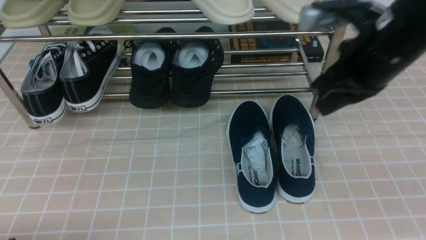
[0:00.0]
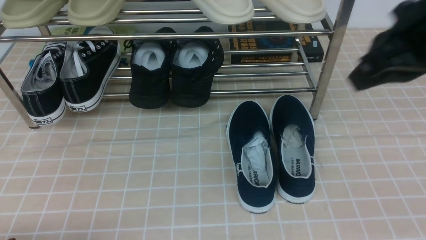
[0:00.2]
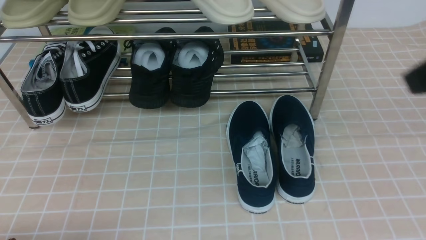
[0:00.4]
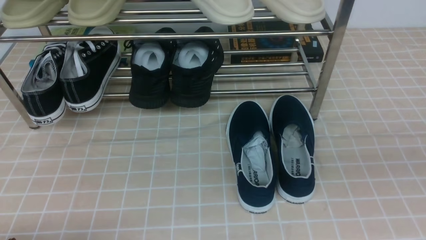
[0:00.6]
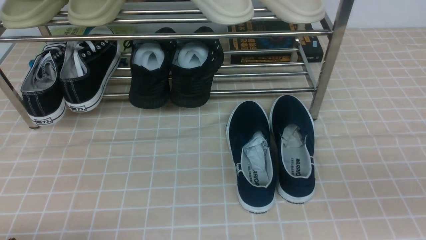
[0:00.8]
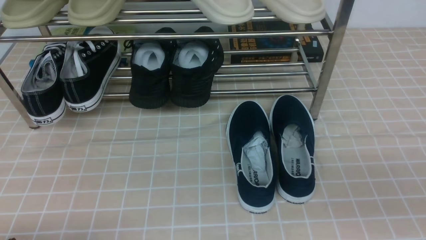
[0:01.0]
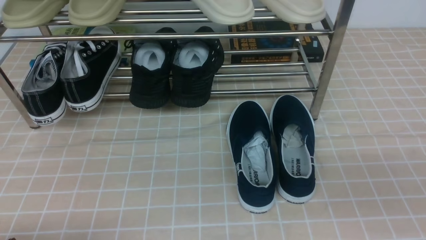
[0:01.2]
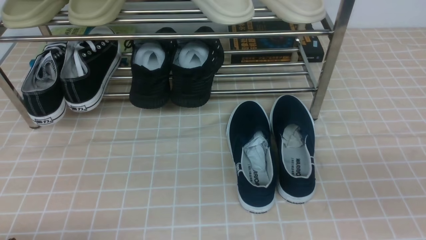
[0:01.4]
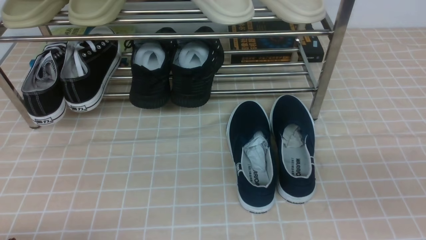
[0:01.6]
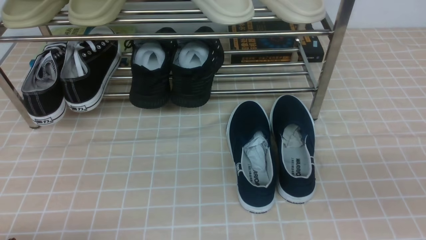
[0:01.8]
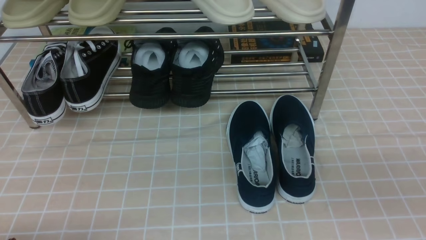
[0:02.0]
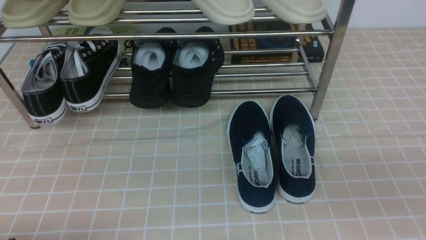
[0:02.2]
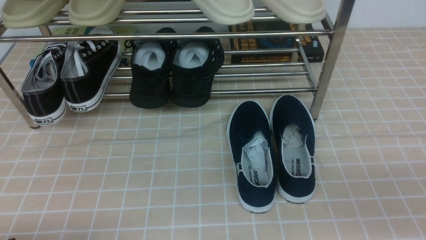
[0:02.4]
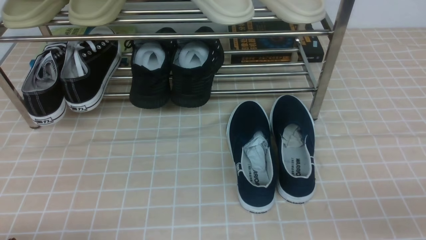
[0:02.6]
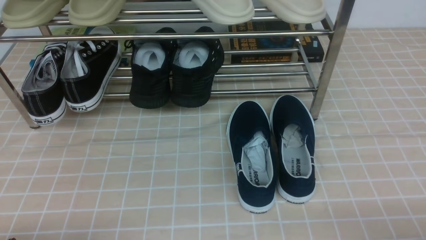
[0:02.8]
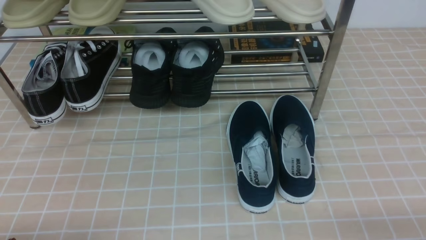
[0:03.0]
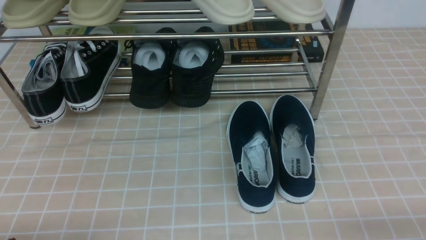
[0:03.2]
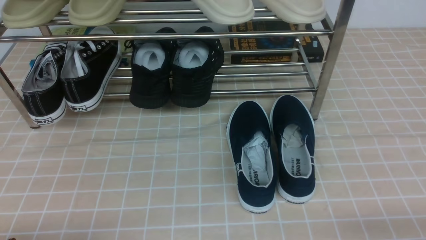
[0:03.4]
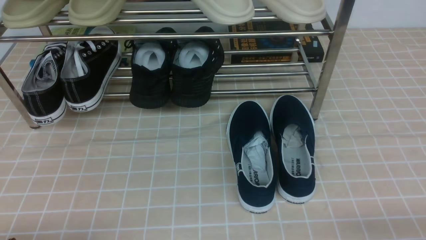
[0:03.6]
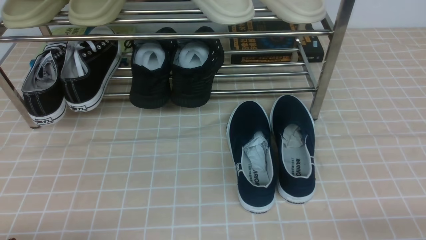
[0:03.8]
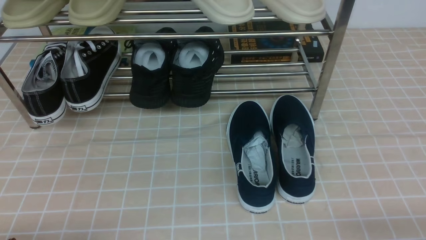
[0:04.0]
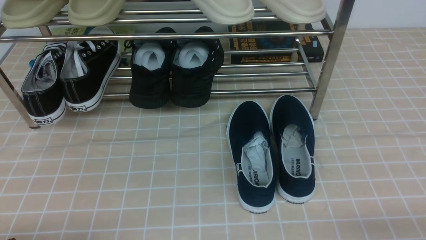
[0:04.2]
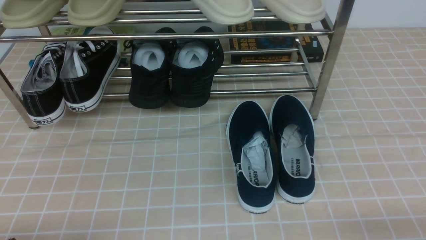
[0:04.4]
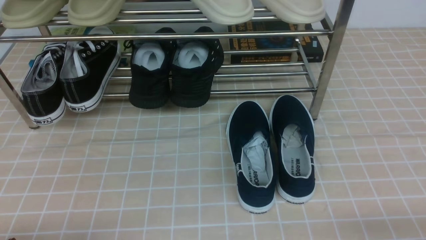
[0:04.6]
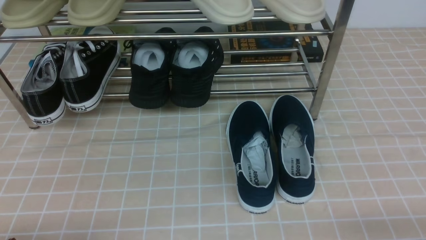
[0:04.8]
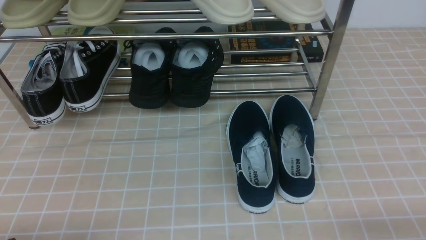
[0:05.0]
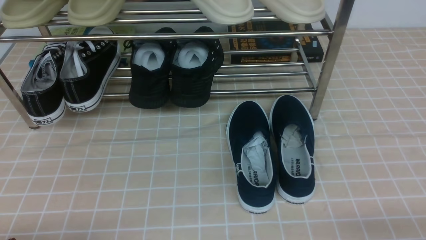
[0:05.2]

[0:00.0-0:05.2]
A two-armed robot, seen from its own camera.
0:00.0 to 0:01.8: The right gripper heads backward and to the right, covering approximately 20 cm.
0:03.4 to 0:05.2: The two grippers keep their place.

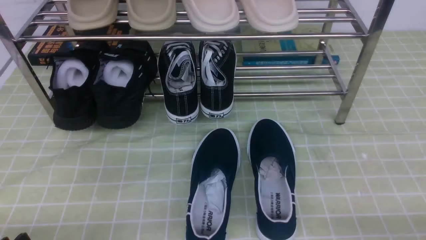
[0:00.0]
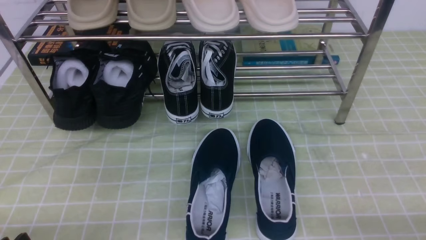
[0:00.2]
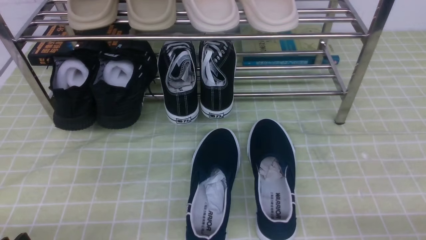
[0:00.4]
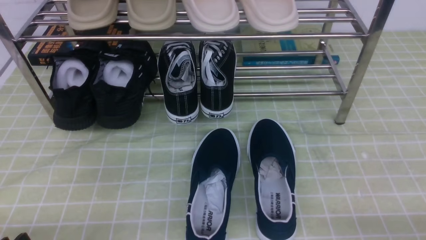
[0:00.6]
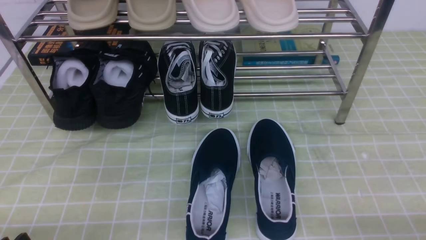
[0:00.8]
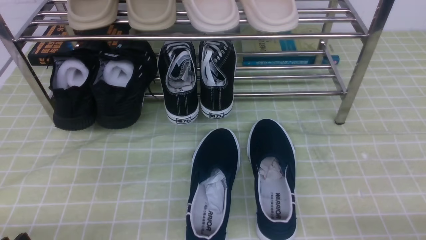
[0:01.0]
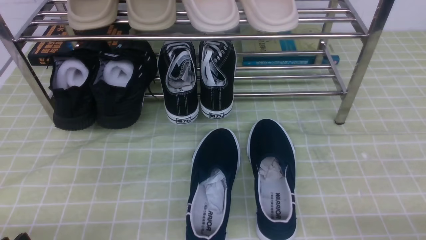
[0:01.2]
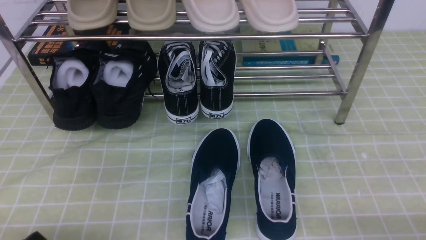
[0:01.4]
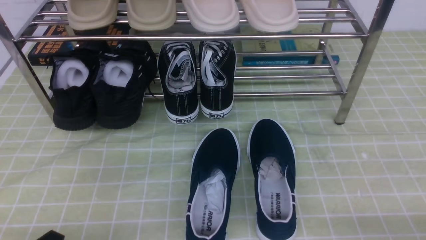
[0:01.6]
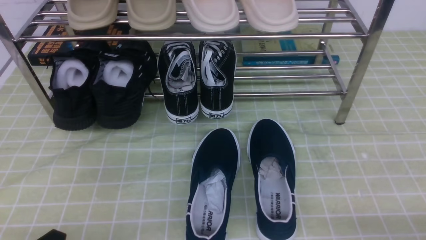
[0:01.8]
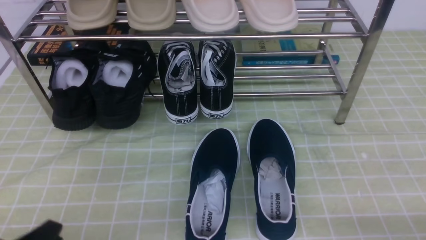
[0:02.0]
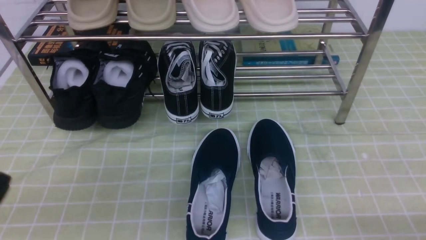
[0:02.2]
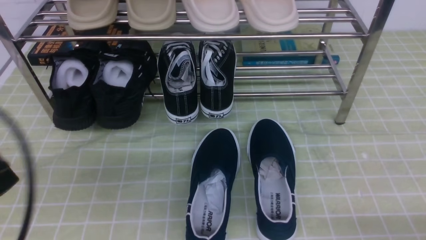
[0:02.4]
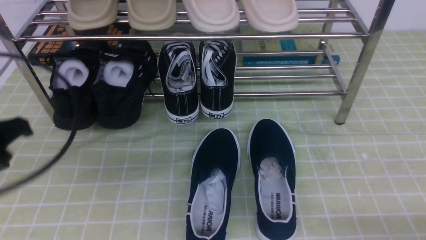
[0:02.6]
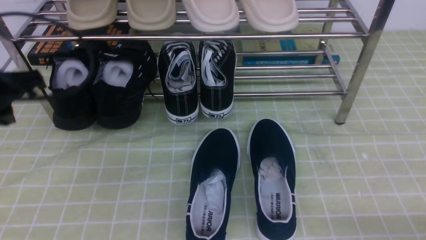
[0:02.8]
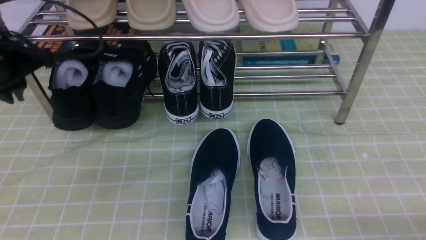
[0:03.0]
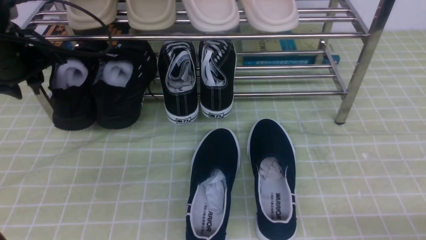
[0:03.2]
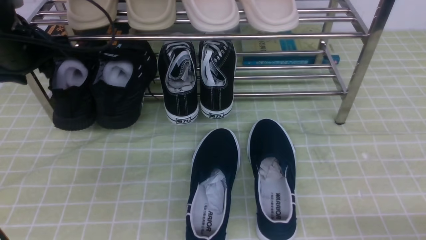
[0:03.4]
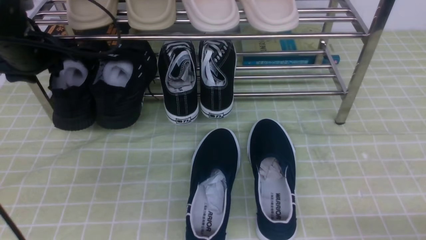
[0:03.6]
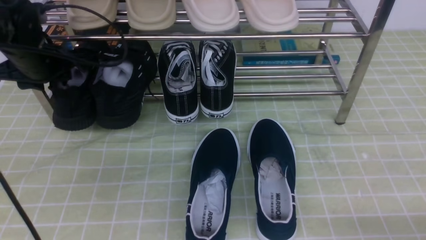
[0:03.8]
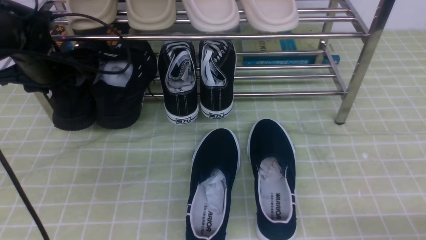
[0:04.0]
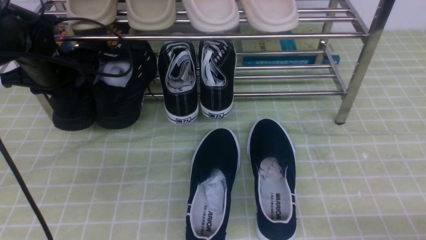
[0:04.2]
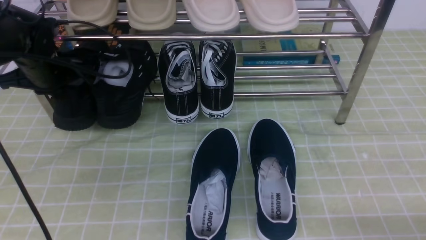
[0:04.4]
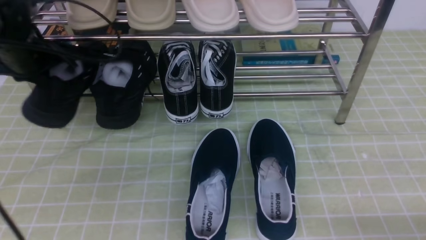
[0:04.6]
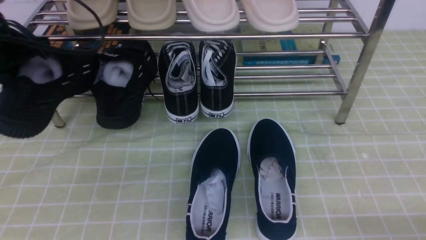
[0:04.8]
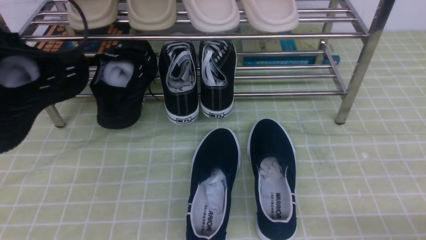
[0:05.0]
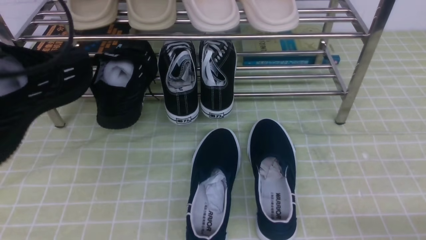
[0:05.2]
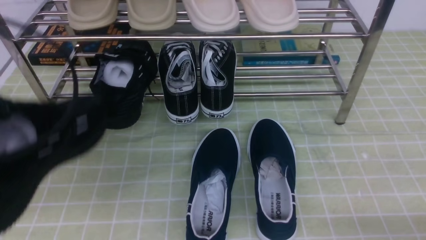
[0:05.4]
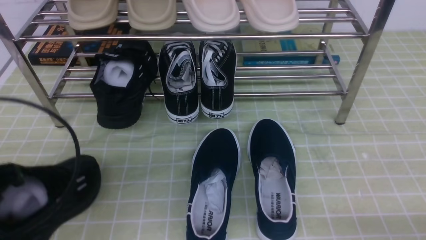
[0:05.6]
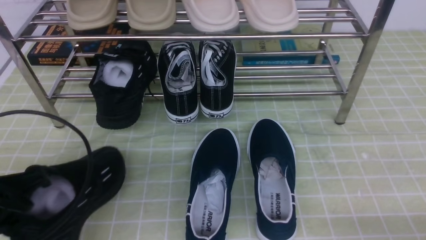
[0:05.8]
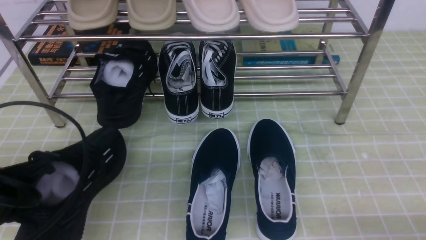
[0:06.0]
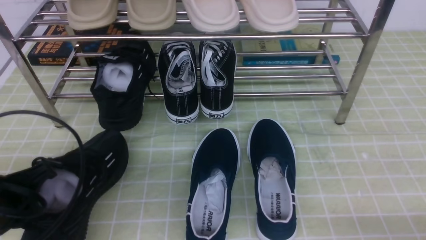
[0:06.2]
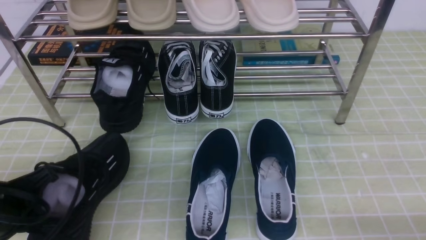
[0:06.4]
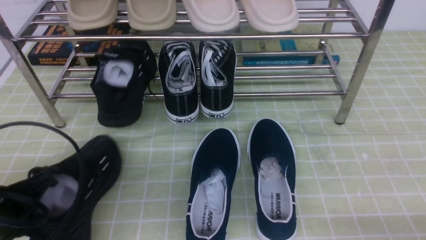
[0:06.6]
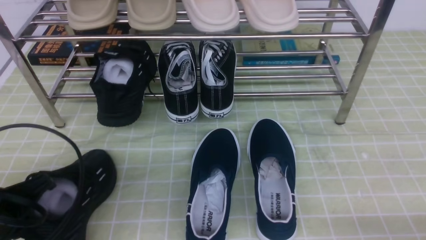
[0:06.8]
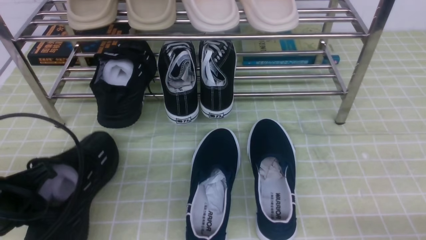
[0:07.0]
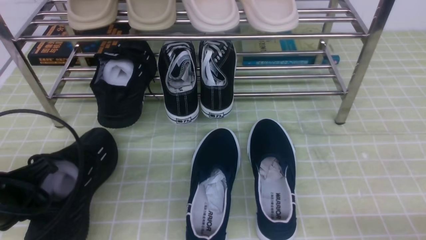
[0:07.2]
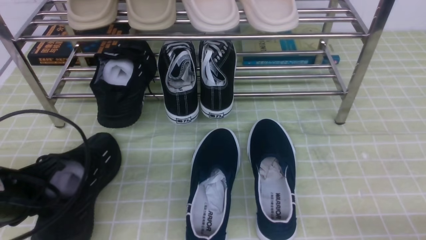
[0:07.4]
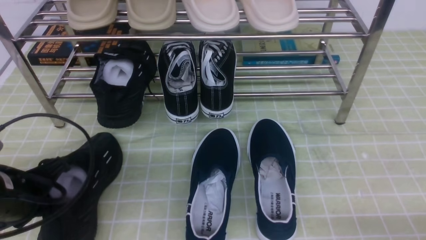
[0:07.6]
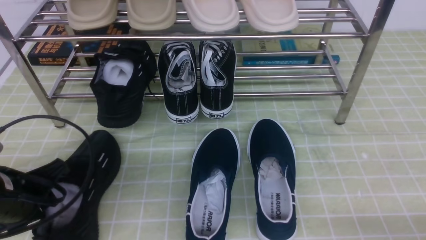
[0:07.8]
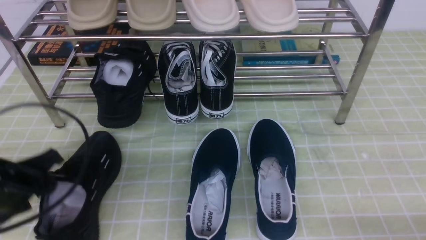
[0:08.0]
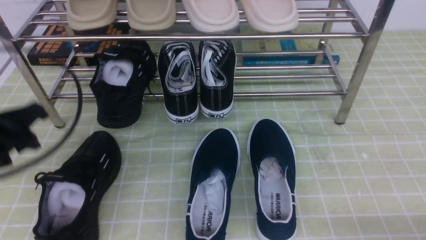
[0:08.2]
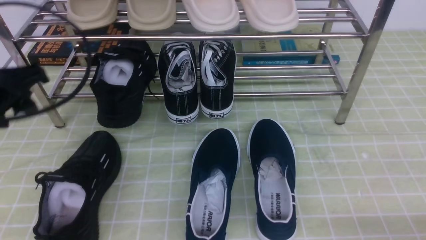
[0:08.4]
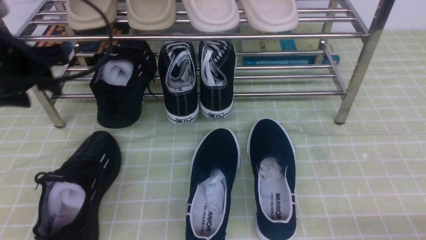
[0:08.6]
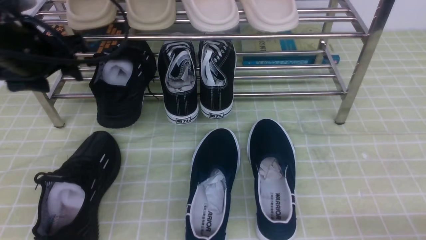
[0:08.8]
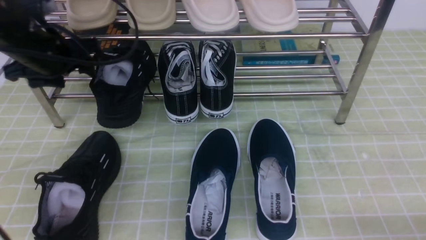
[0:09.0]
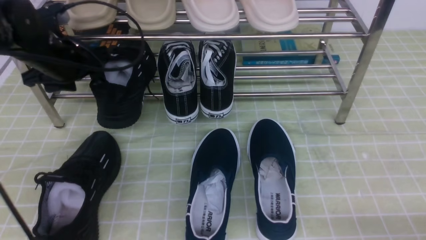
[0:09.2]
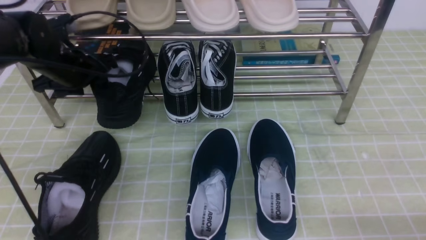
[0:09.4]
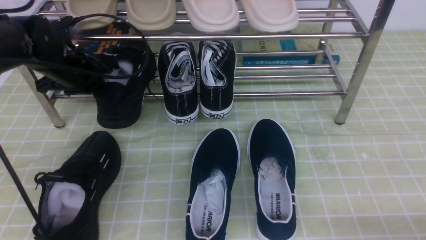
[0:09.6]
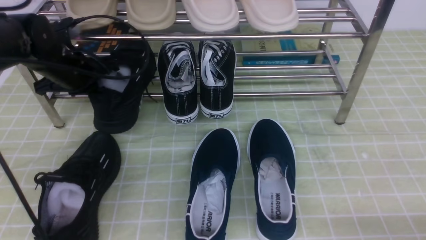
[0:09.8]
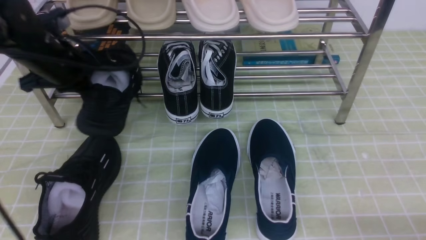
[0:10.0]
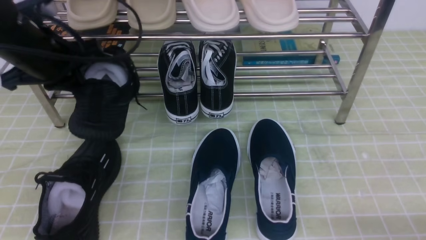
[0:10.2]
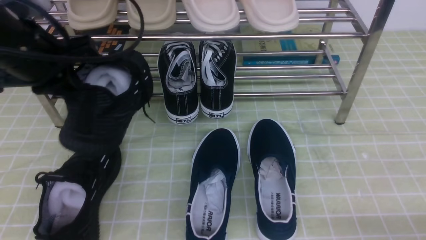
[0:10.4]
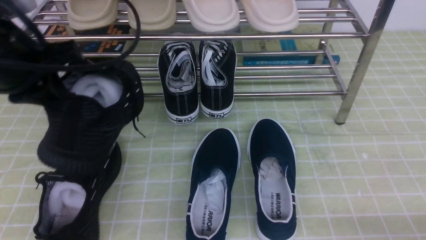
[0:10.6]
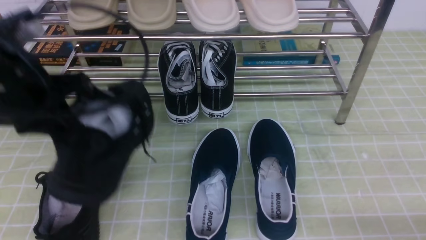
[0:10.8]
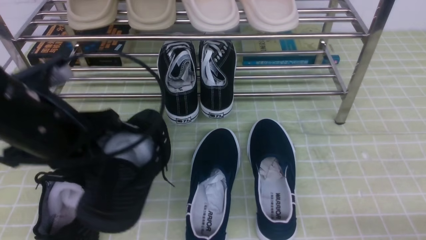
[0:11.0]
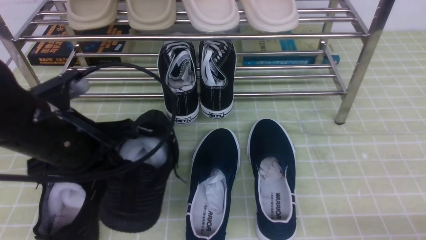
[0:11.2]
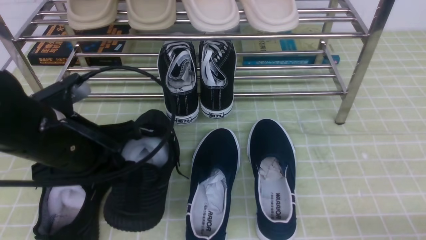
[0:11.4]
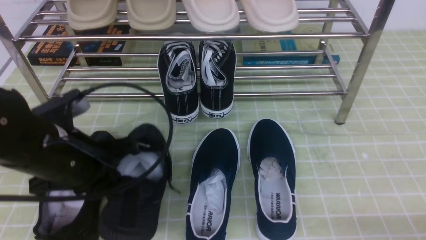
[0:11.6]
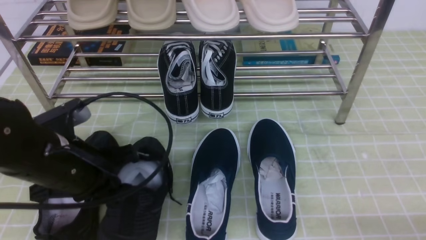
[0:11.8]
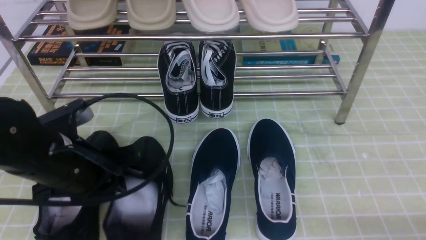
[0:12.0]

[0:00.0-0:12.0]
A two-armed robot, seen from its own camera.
Step, 0:00.0 to 0:04.4: use the left arm to clamp a shoe on the left side of the shoe rack.
Step, 0:04.6 to 0:08.0: Use your left arm to remove the clamped shoe from the shoe rack and put it down.
Step, 0:08.2 to 0:09.8: use the left arm to clamp a shoe on the left side of the shoe rack.
0:01.6 to 0:03.0: The left gripper travels forward and upward by roughly 30 cm.
0:03.0 to 0:04.4: The left gripper shifts some 10 cm forward and downward, and opens, then closes again.
0:04.4 to 0:06.0: The left gripper goes about 25 cm backward.
0:06.0 to 0:07.6: The left gripper ends up approximately 5 cm from where it was.
0:07.6 to 0:09.0: The left gripper heads forward and upward, covering roughly 20 cm, and opens its fingers.
0:09.0 to 0:10.4: The left gripper travels backward and upward by some 10 cm, and closes.
0:10.4 to 0:12.0: The left gripper is displaced downward and backward by some 15 cm, and opens up.
